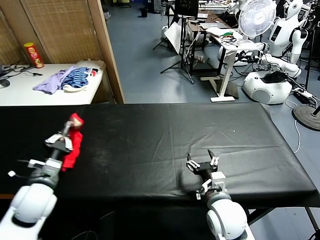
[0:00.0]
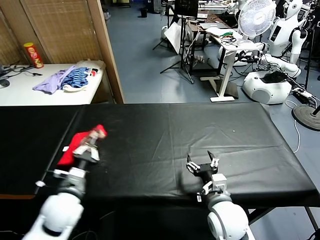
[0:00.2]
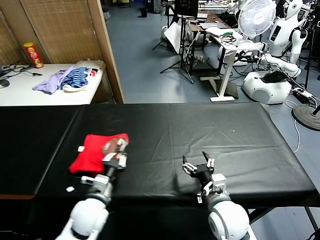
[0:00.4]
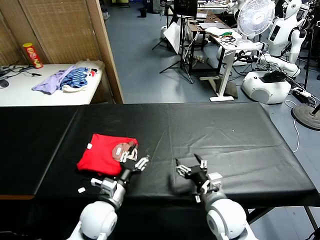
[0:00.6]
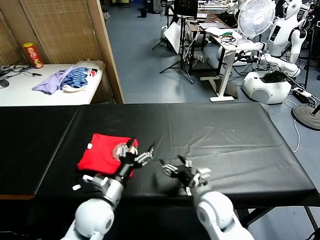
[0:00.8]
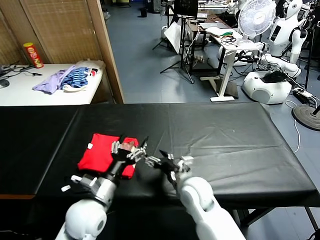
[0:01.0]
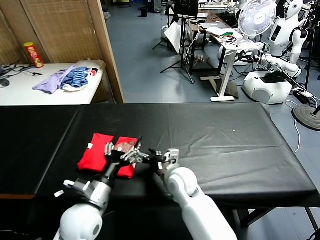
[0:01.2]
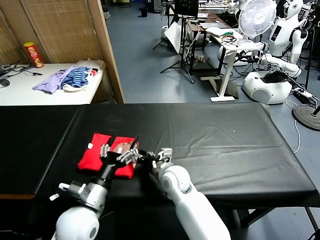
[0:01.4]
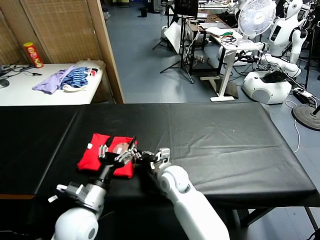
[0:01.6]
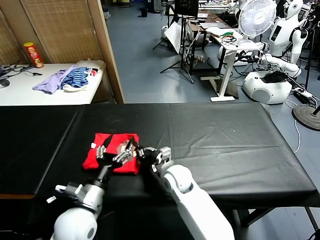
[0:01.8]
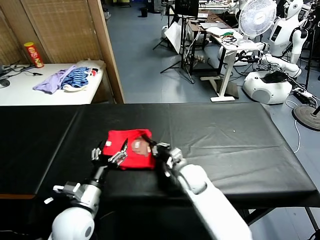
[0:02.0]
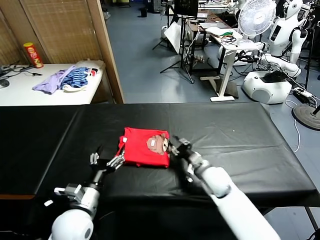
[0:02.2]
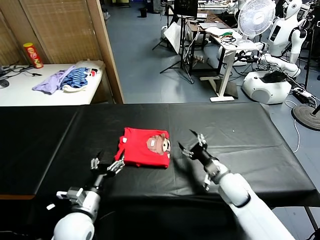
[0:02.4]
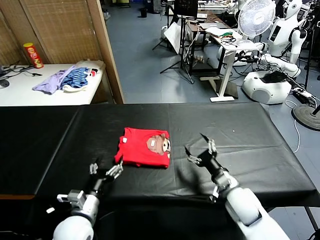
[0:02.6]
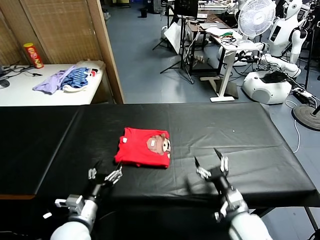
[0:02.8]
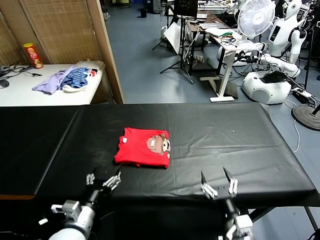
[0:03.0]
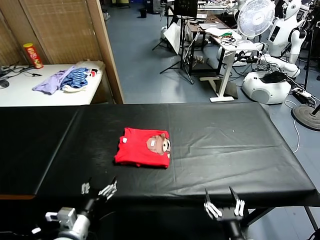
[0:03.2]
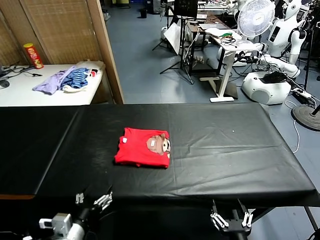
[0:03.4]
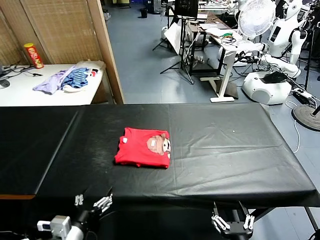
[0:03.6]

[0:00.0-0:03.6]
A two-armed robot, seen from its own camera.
Task of the whole recording: fold and organize the clothes.
Step, 0.8 to 2.2 s: Drag the clothes to the center of the table.
0.0 to 1.8 s: The right gripper moves forward and to the left, roughly 20 cm, and closes. The left gripper moves to the right, about 15 cm, and opens up.
1.8 to 3.6 s: The left gripper travels backward by roughly 10 cm, while the right gripper goes about 35 cm backward and to the right, and opens.

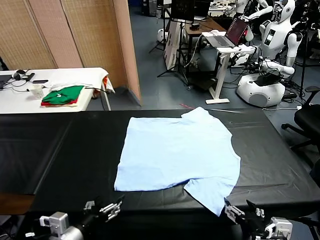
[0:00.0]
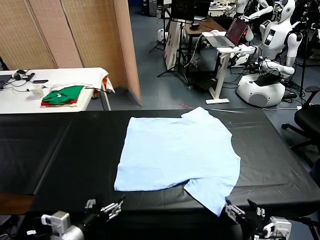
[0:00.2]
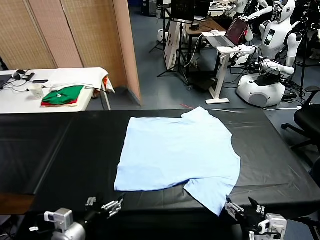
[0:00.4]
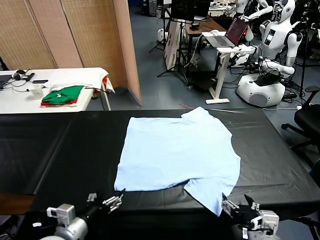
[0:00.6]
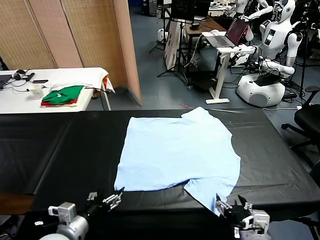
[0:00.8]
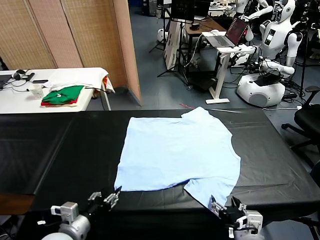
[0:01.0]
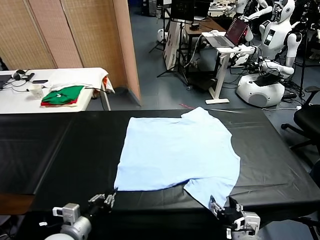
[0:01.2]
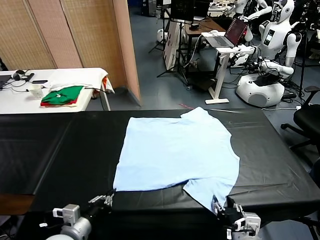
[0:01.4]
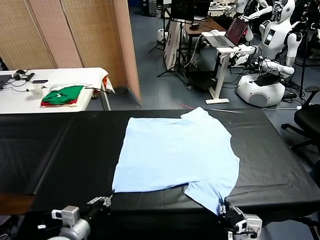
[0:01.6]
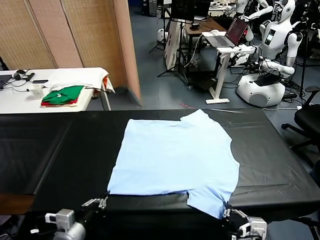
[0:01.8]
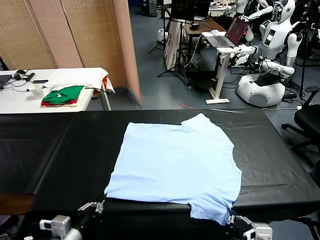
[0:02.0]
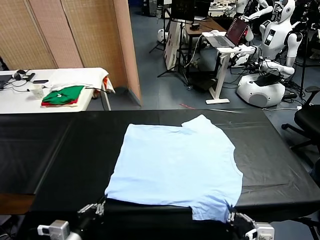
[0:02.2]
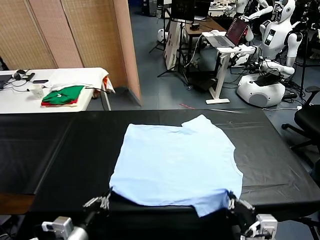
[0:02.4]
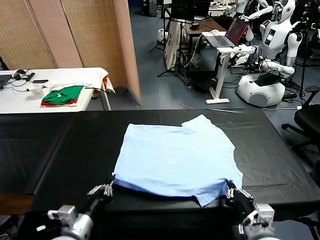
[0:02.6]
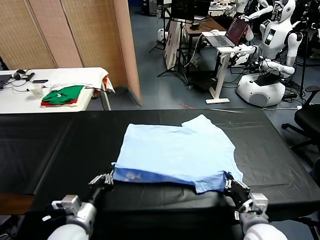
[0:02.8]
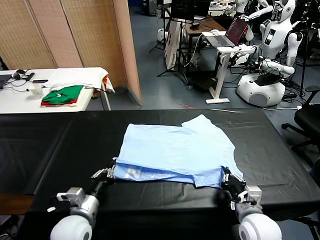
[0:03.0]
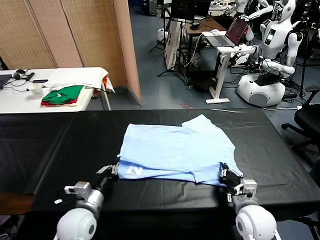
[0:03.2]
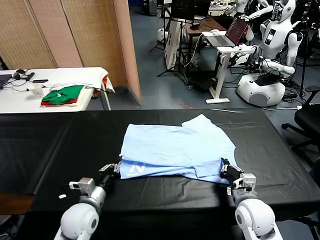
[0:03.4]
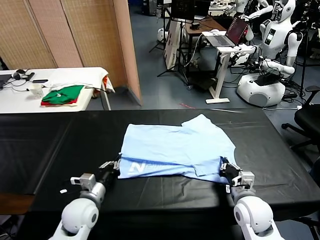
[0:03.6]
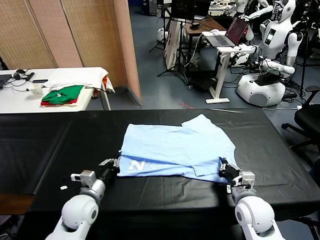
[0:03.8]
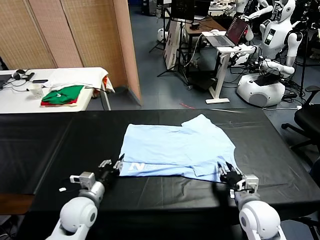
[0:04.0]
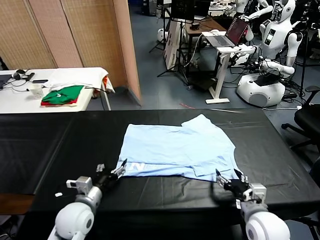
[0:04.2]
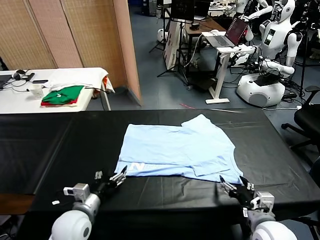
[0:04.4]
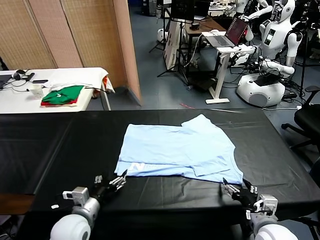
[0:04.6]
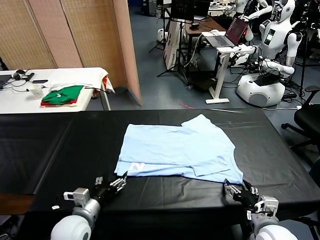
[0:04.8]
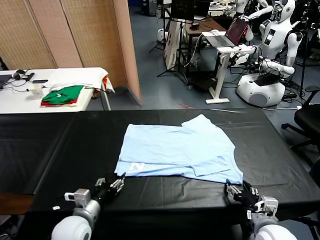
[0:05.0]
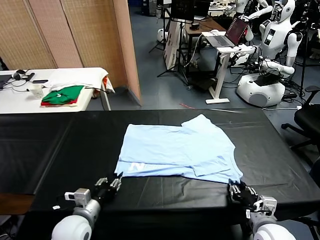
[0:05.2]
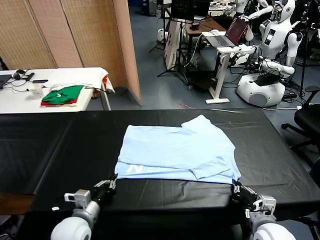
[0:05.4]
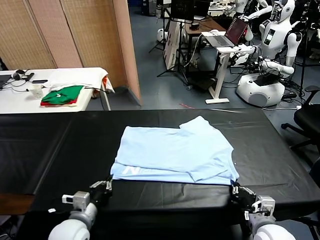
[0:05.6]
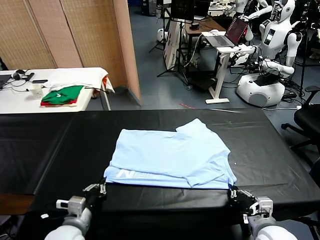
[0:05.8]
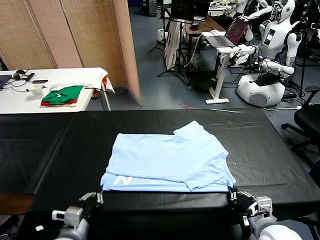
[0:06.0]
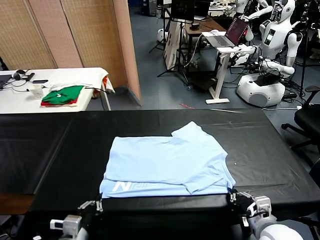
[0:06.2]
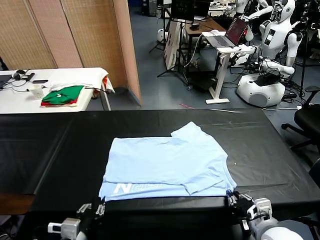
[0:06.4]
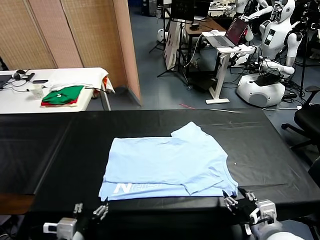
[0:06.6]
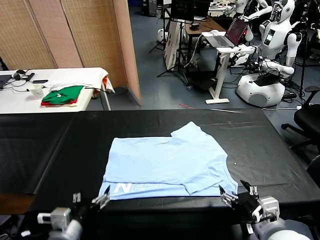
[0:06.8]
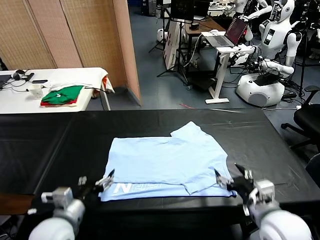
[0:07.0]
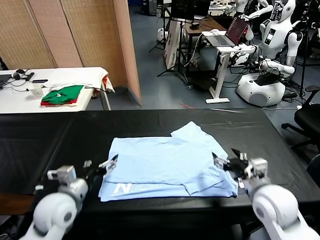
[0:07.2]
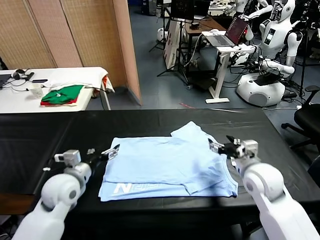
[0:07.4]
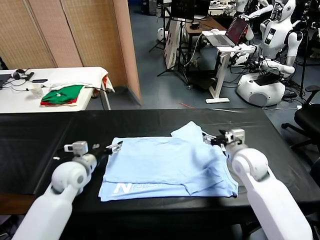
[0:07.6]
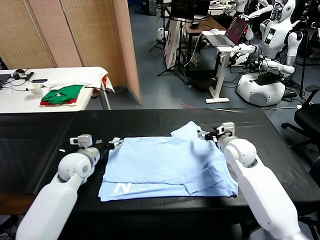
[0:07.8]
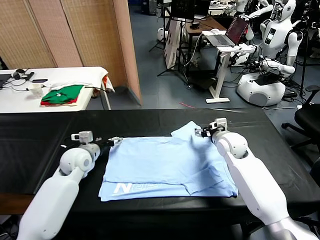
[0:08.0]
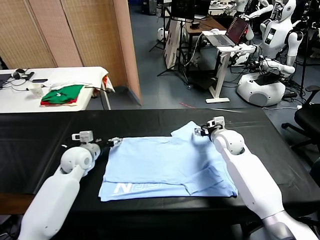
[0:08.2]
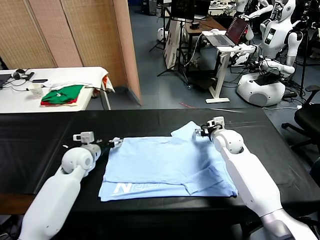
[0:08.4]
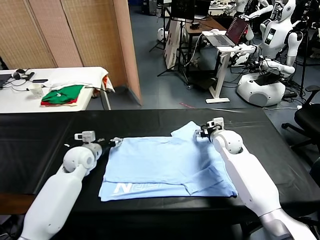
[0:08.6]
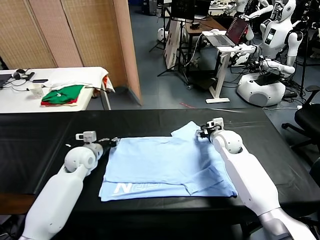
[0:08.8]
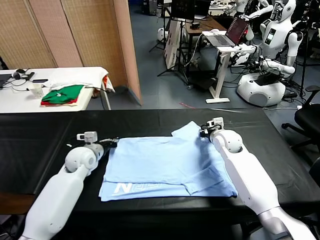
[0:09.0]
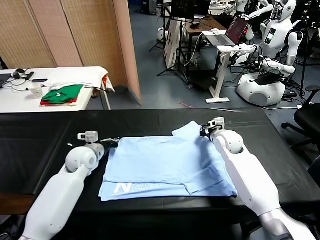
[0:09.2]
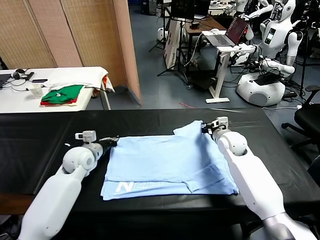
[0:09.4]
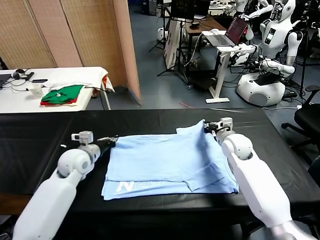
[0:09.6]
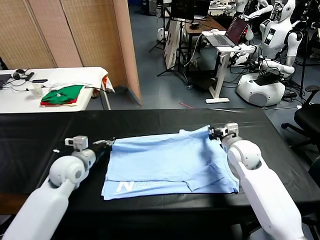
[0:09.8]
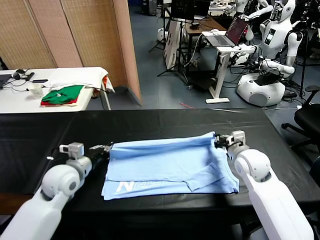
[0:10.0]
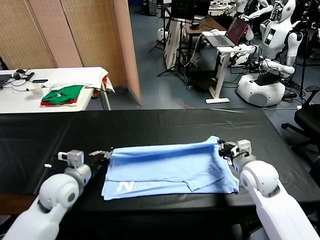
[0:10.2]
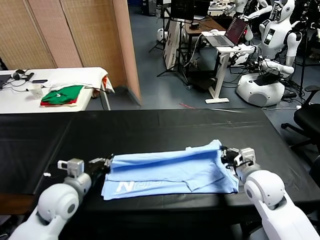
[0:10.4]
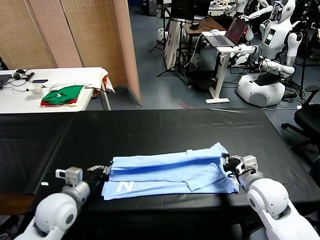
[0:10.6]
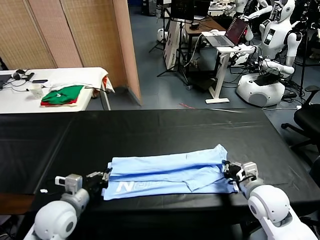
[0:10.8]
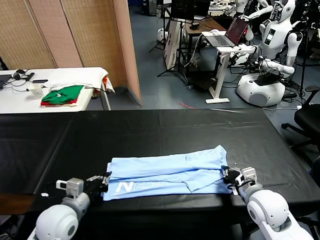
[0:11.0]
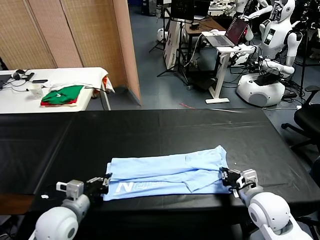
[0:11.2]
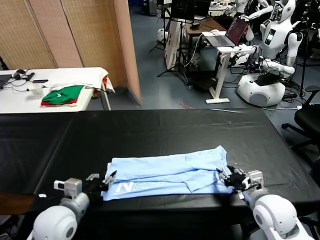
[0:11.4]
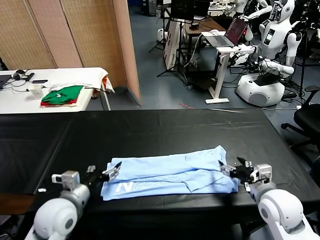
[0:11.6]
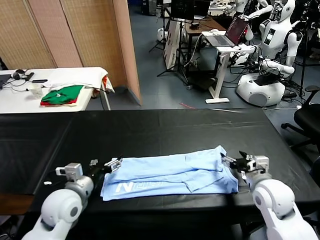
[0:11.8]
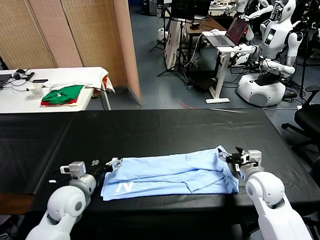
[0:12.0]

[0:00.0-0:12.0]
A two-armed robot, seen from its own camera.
Task of the whole recording: fold and organize the clothes.
Step, 0.0 to 1.6 s: use both grippers simultaneously to clamp the lower edge of the clothing fabric.
Step, 1.8 to 4.0 s: use both grippers to drag the lower edge of the fabric forward and fold it over the upper edge.
Step, 4.2 to 6.4 s: Drag the clothes downward with both gripper.
Step, 6.8 to 8.8 s: use both grippers simultaneously to clamp the upper edge of the clothing fabric.
Step, 9.2 to 11.2 s: use both grippers to drag the upper edge of the fabric backward and fold it over the lower edge.
1.6 to 3.0 s: The left gripper shifts about 10 cm forward, while the right gripper goes some 15 cm forward.
3.0 to 4.4 s: The left gripper opens up. Meanwhile the right gripper heads backward, covering roughly 5 cm, and opens.
4.4 to 6.0 s: The right gripper closes up. The left gripper heads backward, covering roughly 10 cm, and closes.
6.0 to 7.6 s: The two grippers go approximately 25 cm forward. The right gripper opens. Meanwhile the left gripper opens up.
7.6 to 9.0 s: The right gripper closes up. Meanwhile the left gripper is displaced forward by about 5 cm, and closes.
9.0 to 10.4 s: Both grippers move backward, some 20 cm.
10.4 to 12.0 s: The left gripper opens its fingers, while the right gripper heads forward, covering roughly 5 cm, and opens.

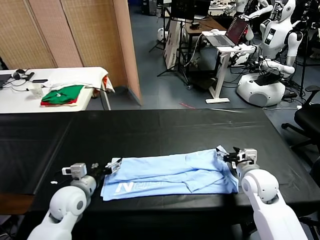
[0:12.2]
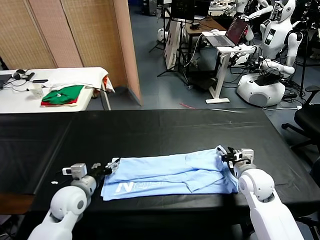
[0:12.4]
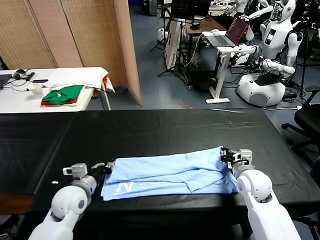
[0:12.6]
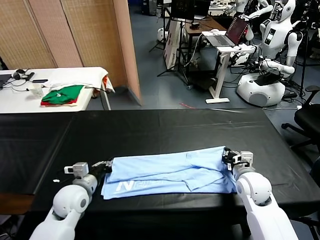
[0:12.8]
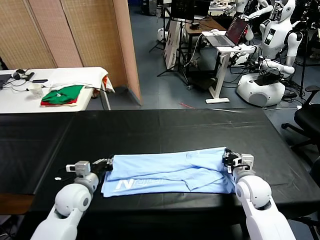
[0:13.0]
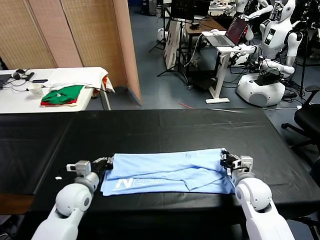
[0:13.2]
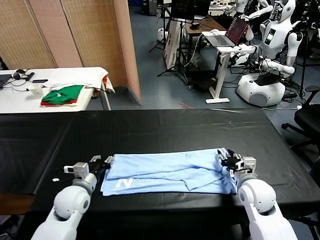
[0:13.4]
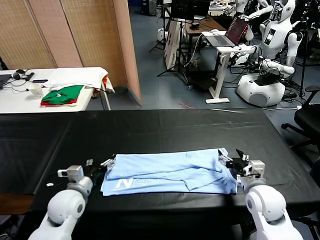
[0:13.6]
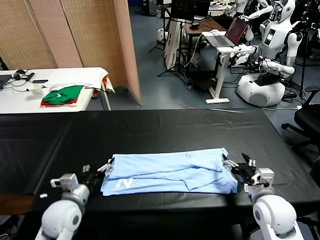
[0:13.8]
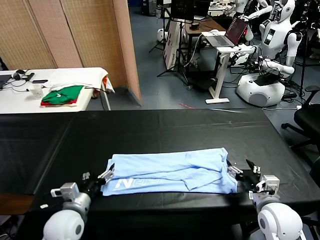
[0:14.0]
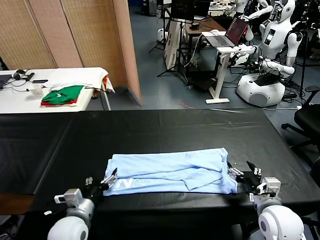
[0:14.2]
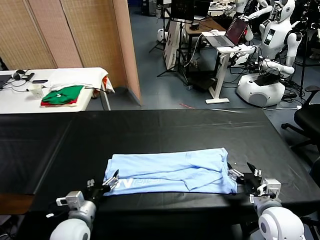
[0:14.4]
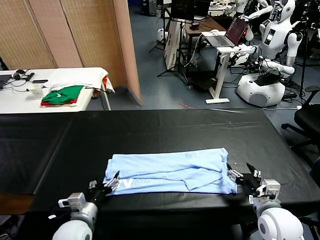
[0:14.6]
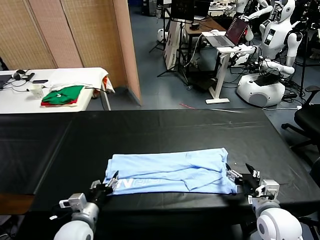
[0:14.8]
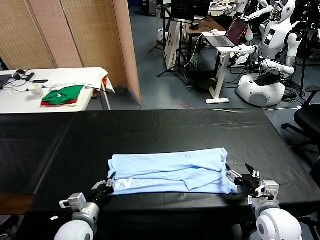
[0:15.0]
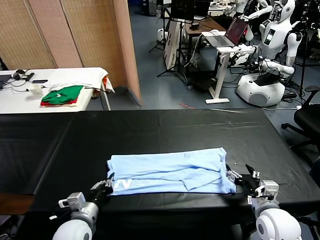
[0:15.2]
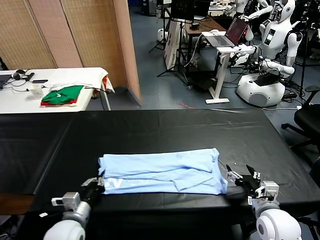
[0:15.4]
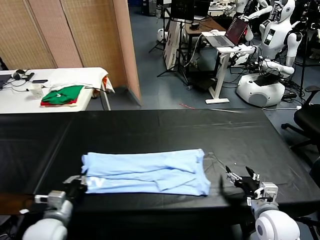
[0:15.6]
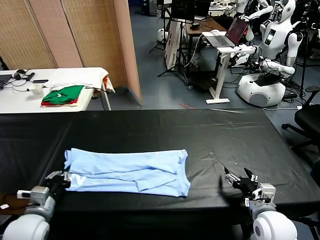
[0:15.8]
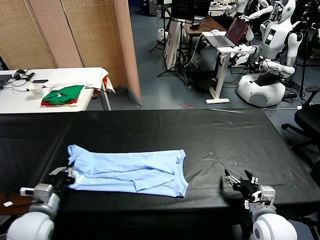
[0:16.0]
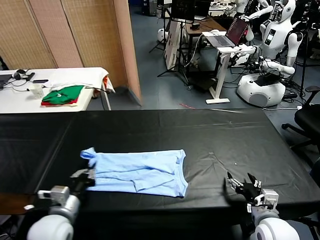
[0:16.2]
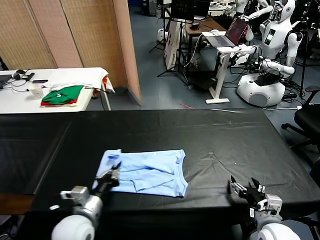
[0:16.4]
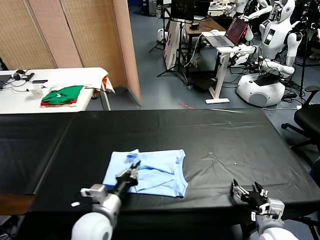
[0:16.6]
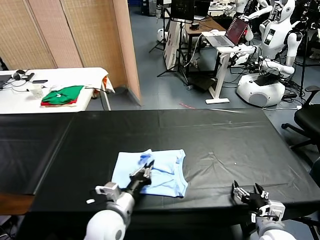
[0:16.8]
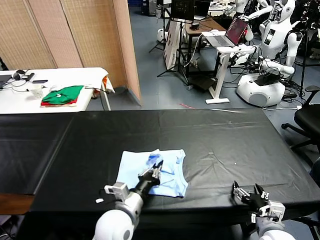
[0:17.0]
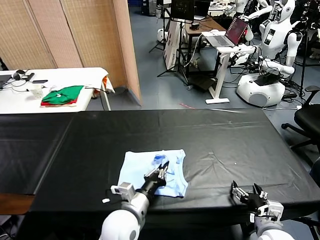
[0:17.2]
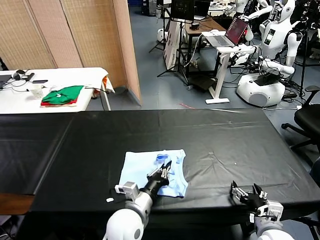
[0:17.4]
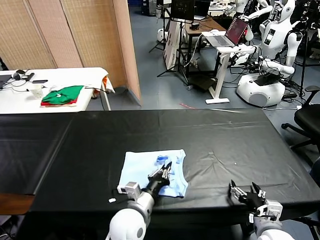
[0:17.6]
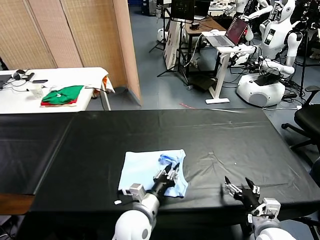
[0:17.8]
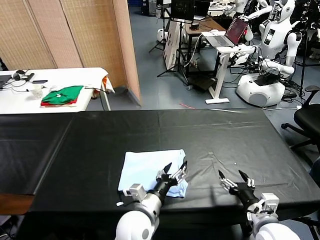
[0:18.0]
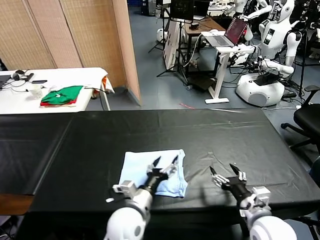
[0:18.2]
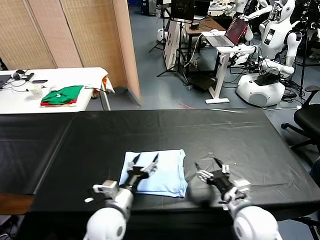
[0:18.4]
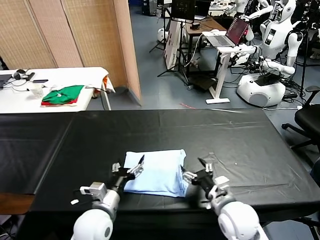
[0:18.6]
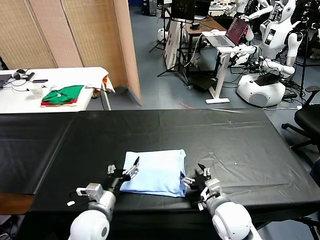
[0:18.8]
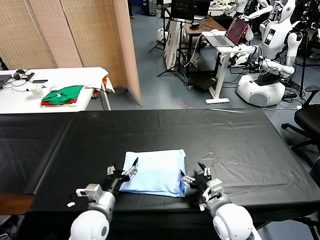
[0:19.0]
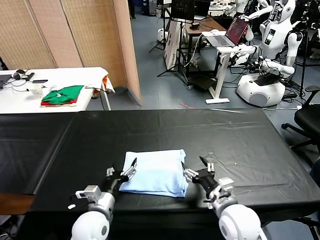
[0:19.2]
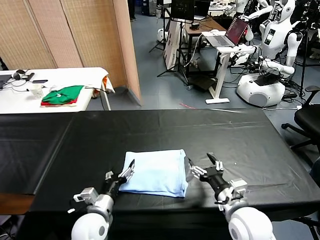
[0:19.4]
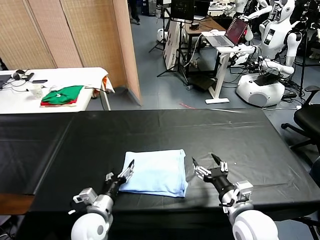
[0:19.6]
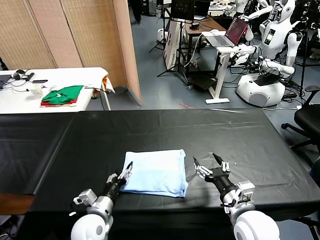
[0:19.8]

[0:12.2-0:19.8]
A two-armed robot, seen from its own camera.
Task of the whole recording: fold and organize the clothes.
Step, 12.2 to 15.0 s: use the left gripper to clamp the left edge of the fabric.
Step, 15.2 to 17.8 s: use the left gripper to drag the left edge of the fabric to the left and folds it over the right edge.
12.2 to 13.8 s: The left gripper shifts roughly 5 cm backward, and closes, then opens again. The right gripper goes about 10 cm backward, and opens.
13.8 to 15.2 s: The left gripper ends up about 5 cm from where it was, and closes its fingers.
15.2 to 16.8 s: The left gripper heads to the right, covering about 10 cm. Meanwhile the right gripper shifts by roughly 5 cm.
16.8 to 18.2 s: The left gripper opens up. Meanwhile the right gripper shifts by roughly 5 cm.
18.2 to 19.8 s: The left gripper heads to the left and downward, covering about 15 cm.
